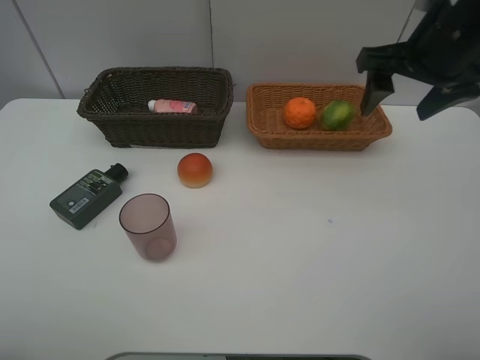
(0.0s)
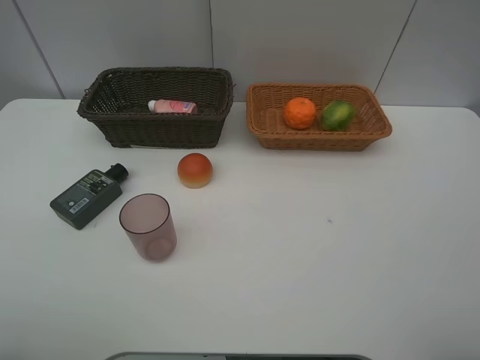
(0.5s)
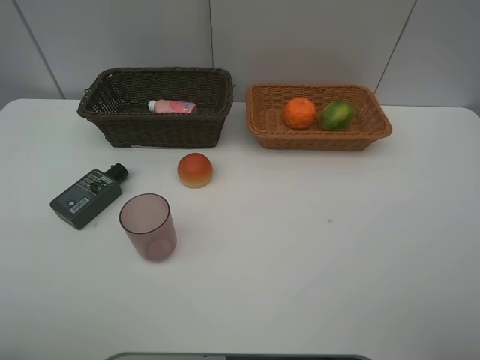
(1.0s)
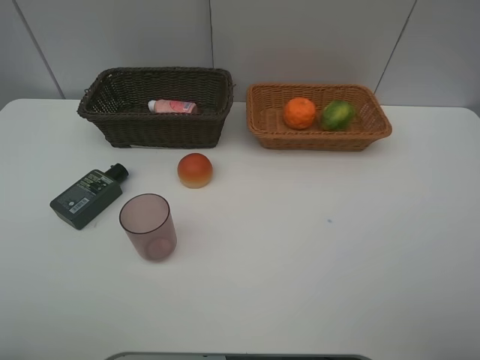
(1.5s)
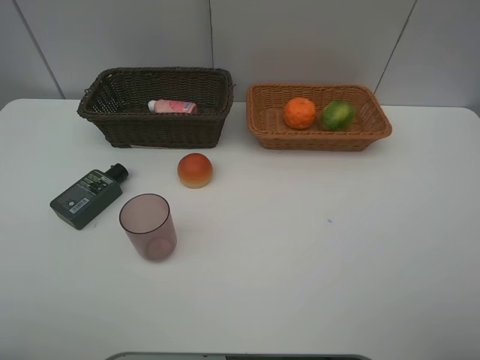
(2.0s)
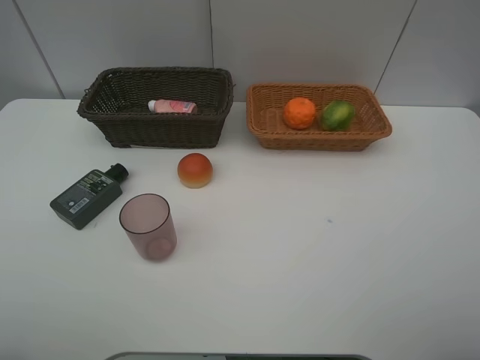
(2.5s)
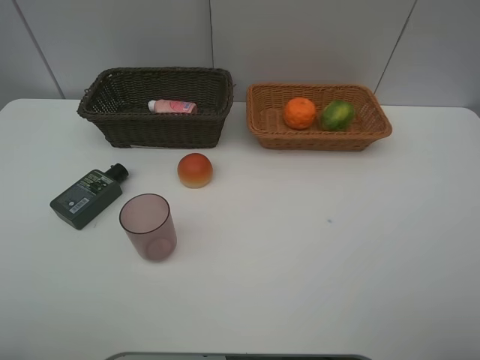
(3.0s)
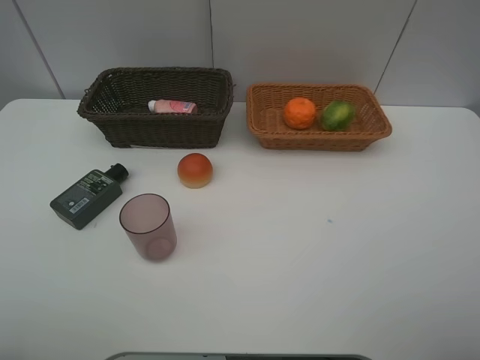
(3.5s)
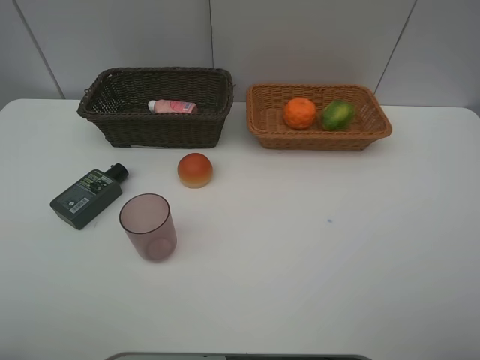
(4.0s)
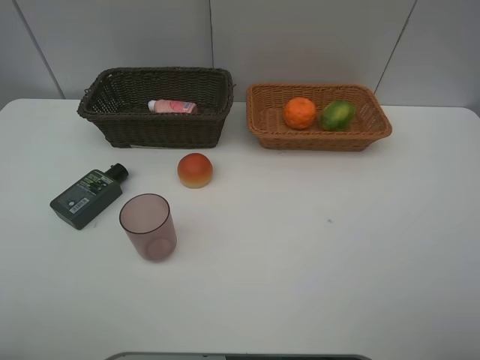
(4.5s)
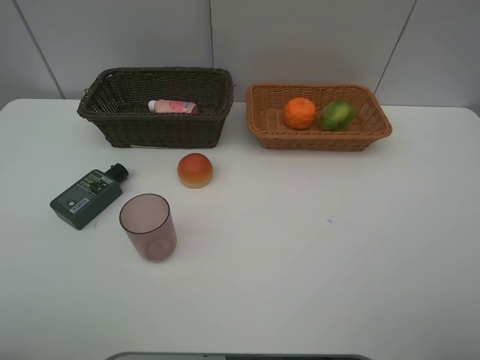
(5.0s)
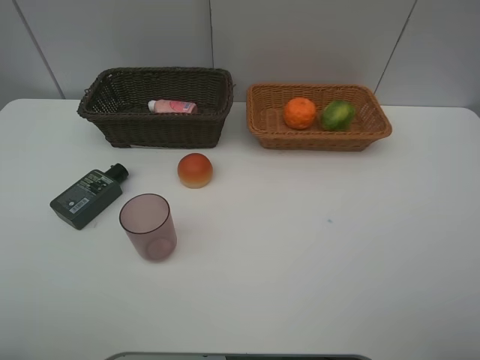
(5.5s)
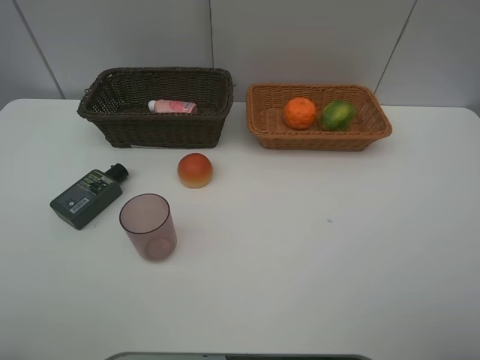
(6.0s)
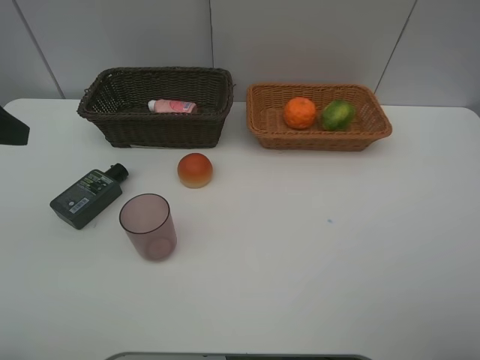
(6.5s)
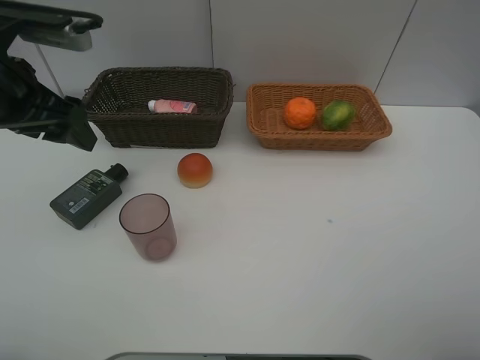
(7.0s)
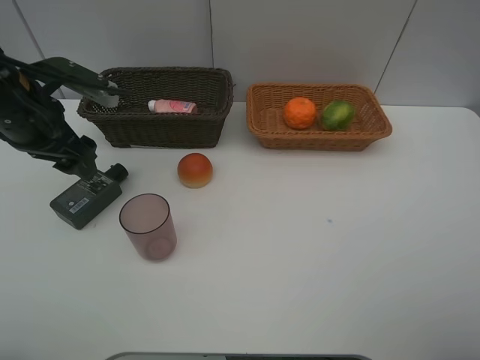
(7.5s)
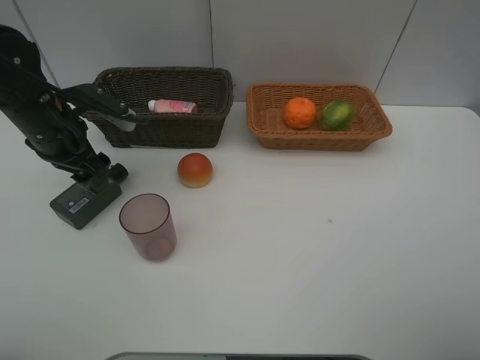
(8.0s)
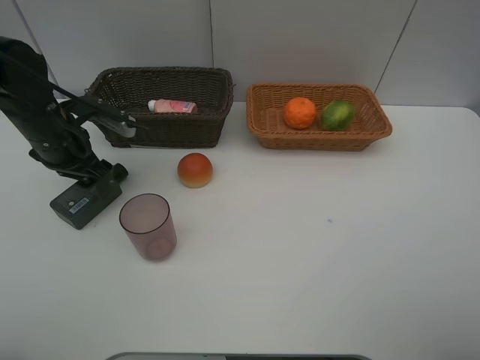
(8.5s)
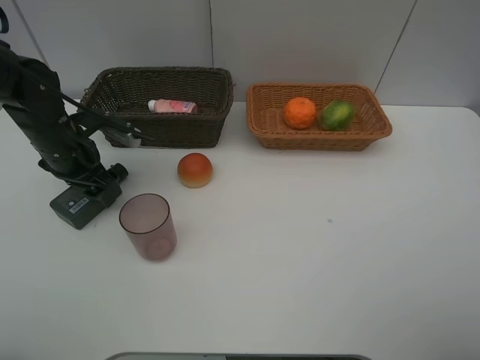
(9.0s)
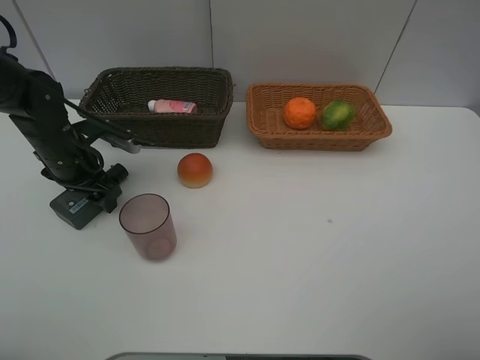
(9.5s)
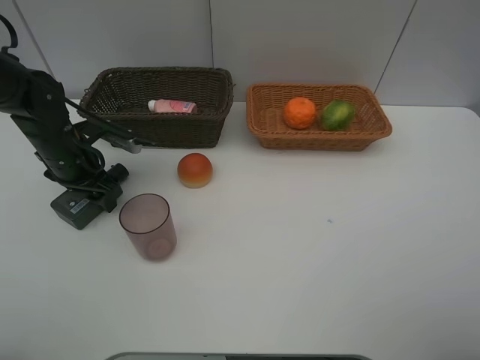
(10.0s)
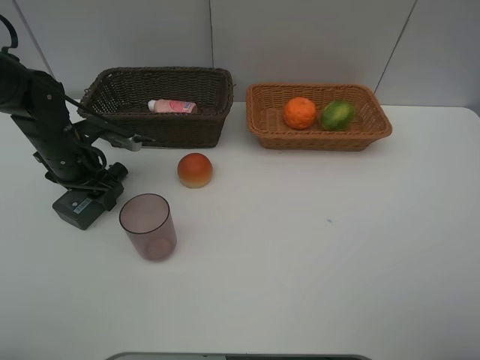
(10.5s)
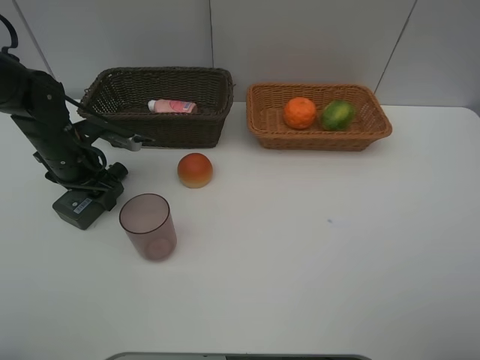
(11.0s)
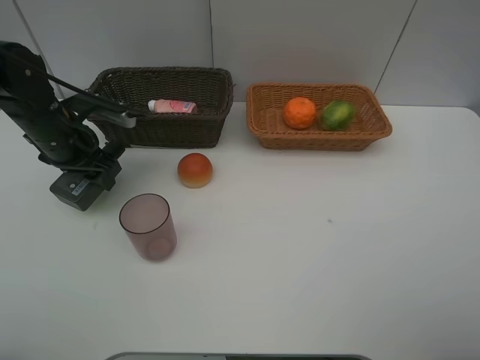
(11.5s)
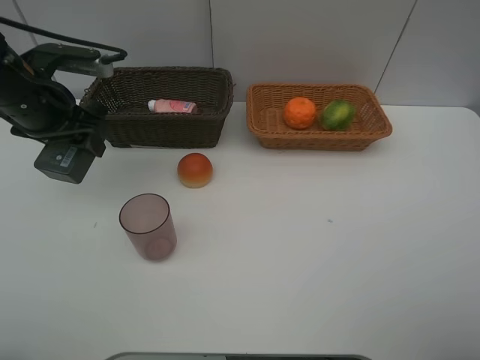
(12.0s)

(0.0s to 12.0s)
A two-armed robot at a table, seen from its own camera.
Task of the whole recording: place multiple objects separately in different baskets.
0.0s - 2.0s: The right gripper heads backward, covering approximately 30 cm.
6.0s - 8.0s: The left gripper shifts about 30 cm forward and downward.
8.0s - 10.0s: The left gripper goes about 5 cm downward.
10.0s - 12.0s: The left gripper is displaced upward by approximately 10 cm.

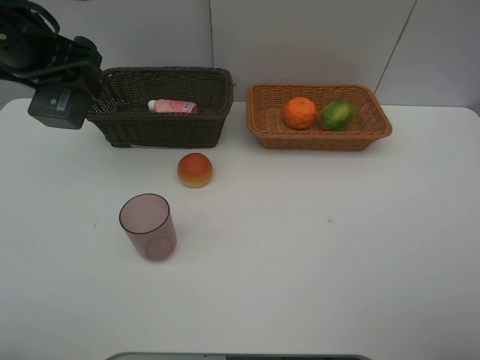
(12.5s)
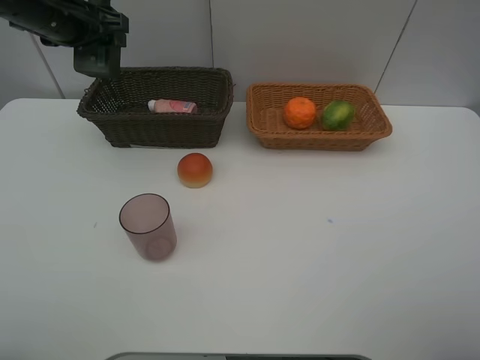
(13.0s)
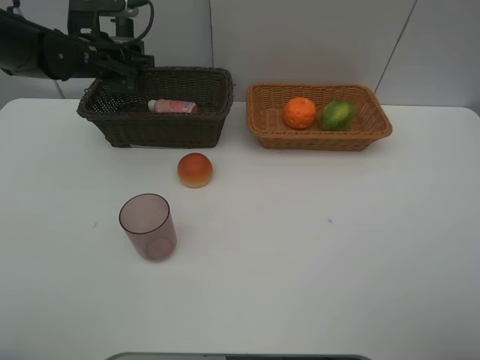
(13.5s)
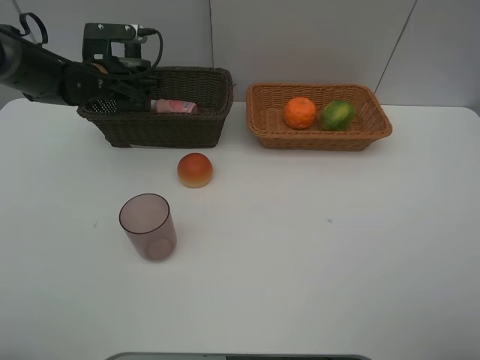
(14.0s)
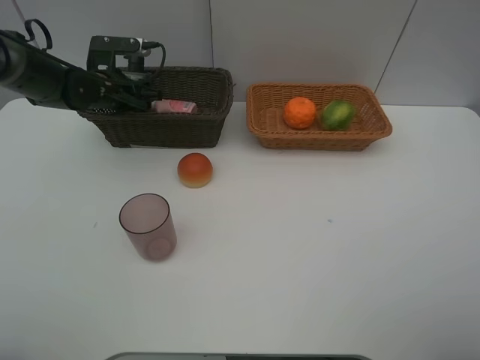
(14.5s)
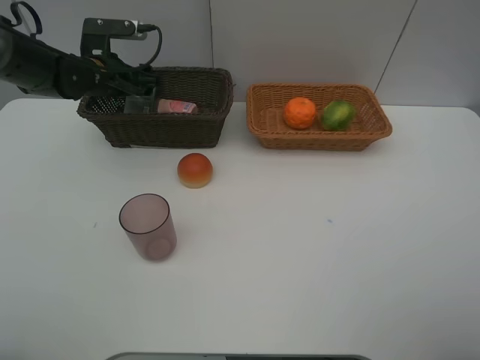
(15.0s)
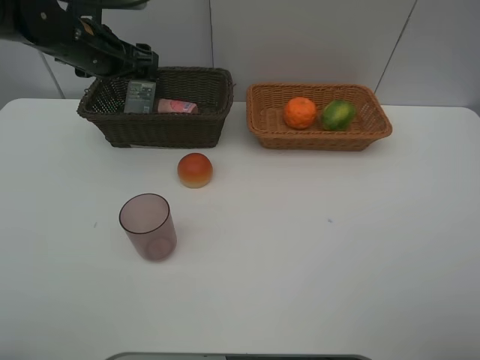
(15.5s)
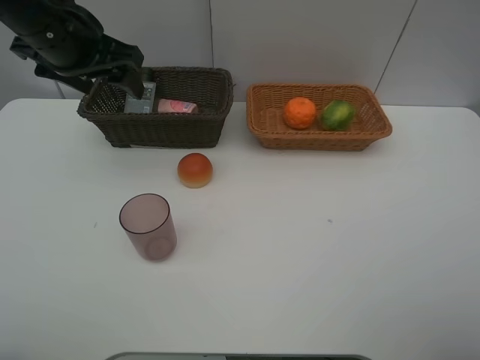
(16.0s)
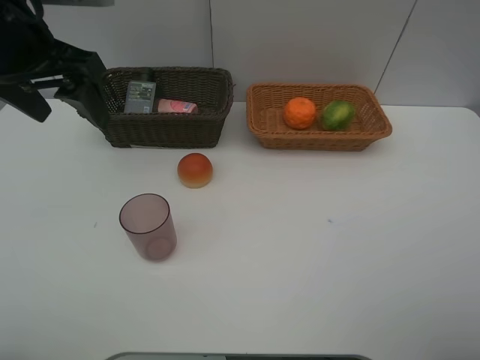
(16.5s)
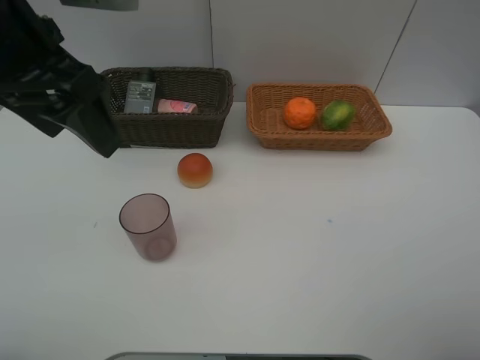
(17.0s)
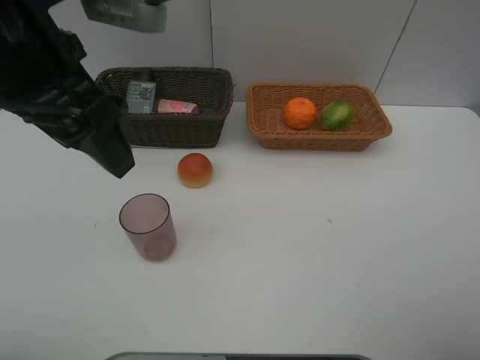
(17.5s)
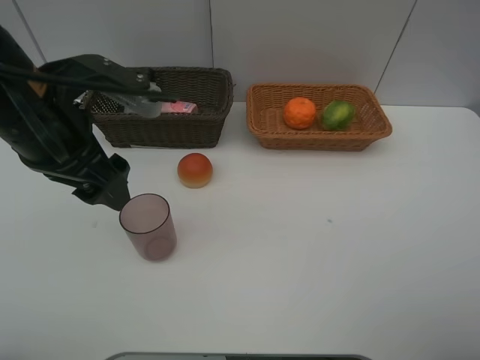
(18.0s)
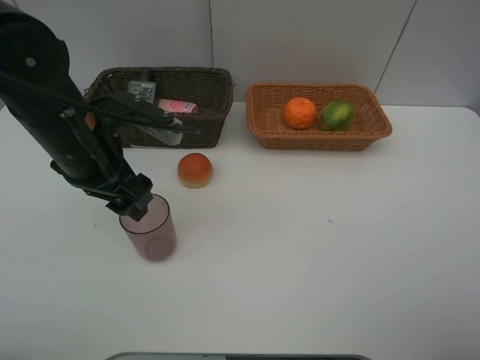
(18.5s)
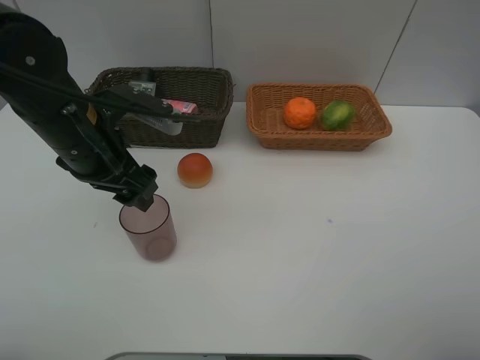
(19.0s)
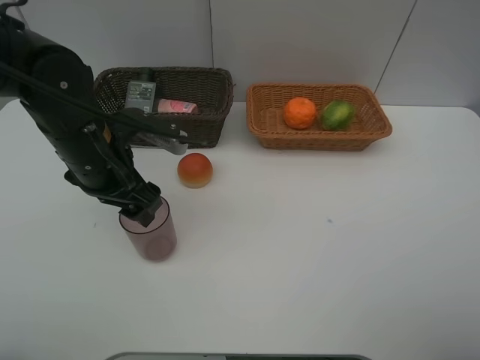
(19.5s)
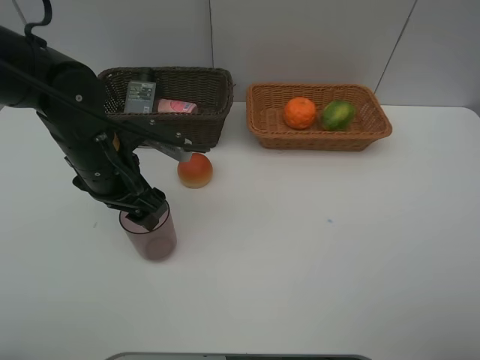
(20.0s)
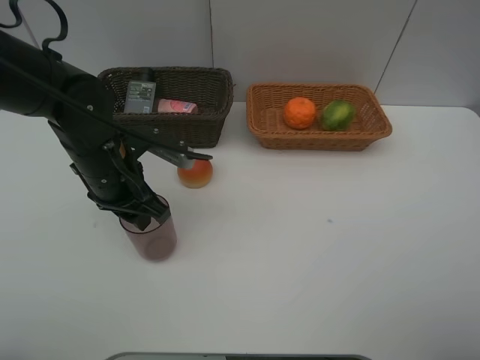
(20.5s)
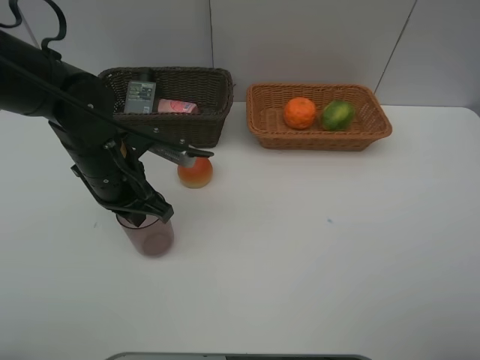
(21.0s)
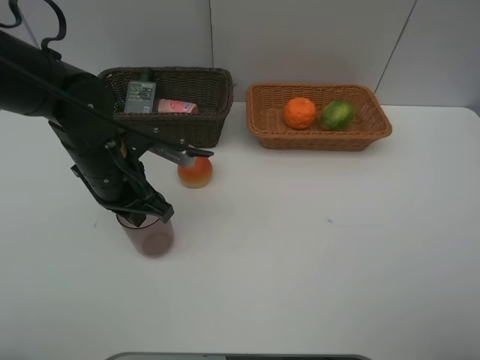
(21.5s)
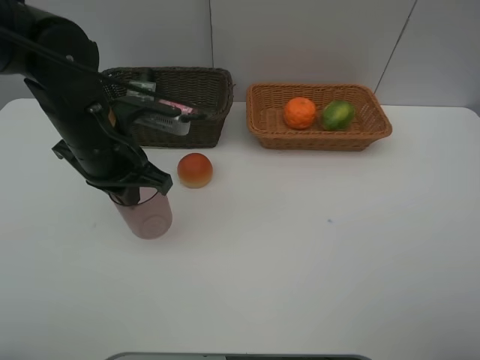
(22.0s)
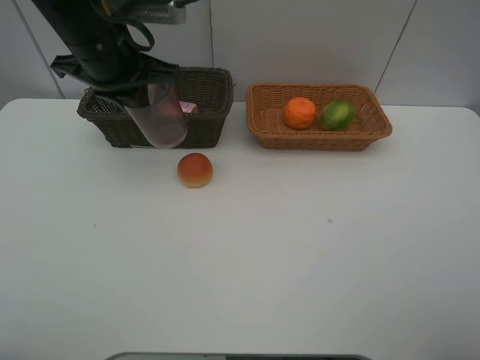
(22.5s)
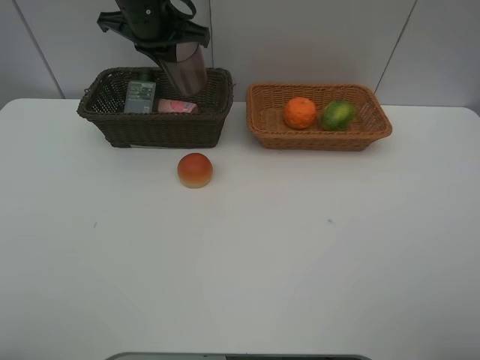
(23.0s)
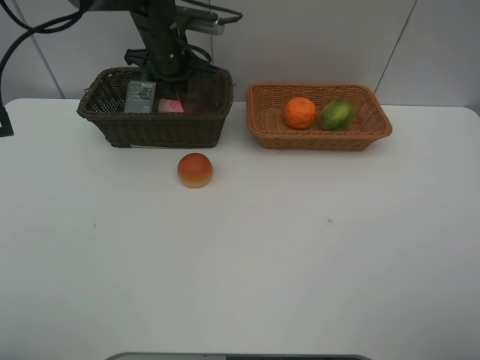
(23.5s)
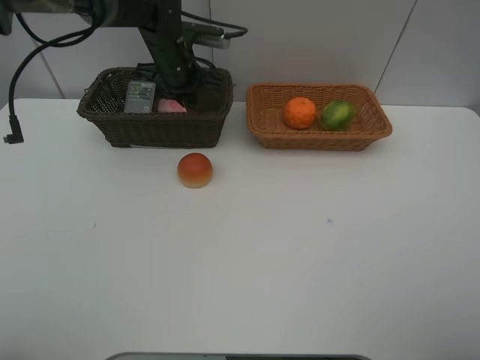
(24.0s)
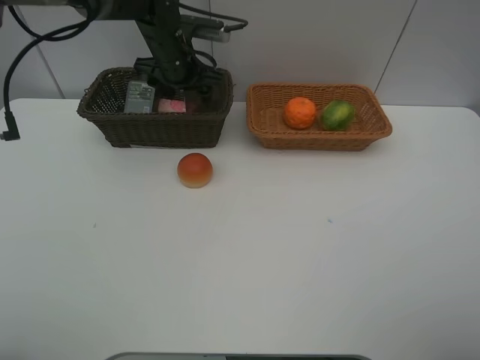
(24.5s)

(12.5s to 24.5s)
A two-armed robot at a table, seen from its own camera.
Task of the whole recording: place multiple objects separately in different baskets.
12.5s - 14.5s: The left gripper travels downward and forward by some 20 cm.
14.5s - 16.5s: The left gripper goes about 25 cm upward and backward.
16.5s - 18.5s: The left gripper moves downward, roughly 10 cm.
18.5s - 20.5s: The left gripper is displaced downward by about 5 cm, and closes up.
20.5s - 22.5s: The left gripper is displaced upward and forward by roughly 15 cm, and closes.
22.5s - 24.5s: The left gripper is displaced forward and downward by roughly 15 cm, and opens its fingers.

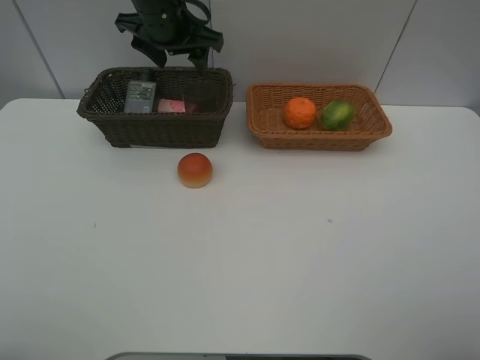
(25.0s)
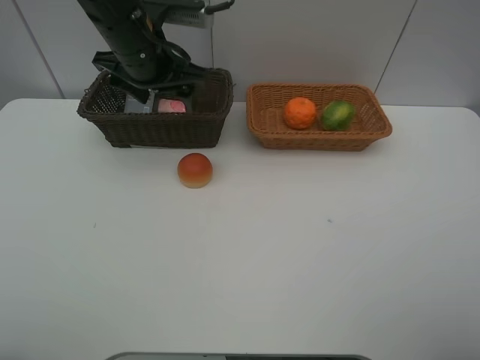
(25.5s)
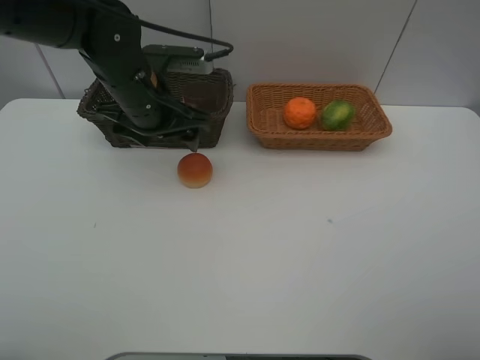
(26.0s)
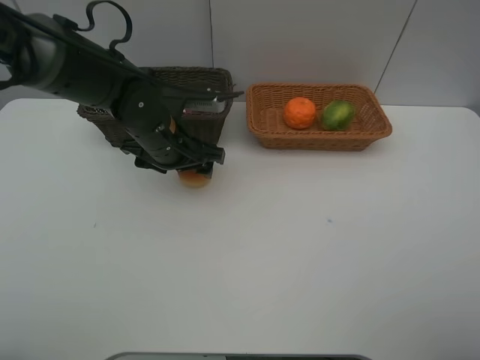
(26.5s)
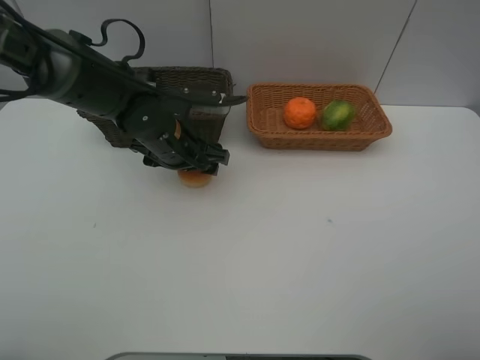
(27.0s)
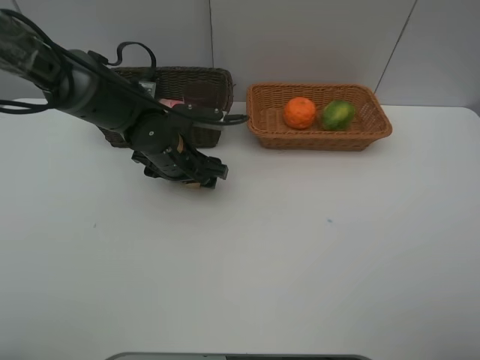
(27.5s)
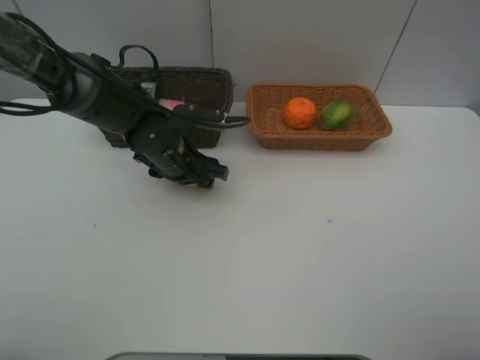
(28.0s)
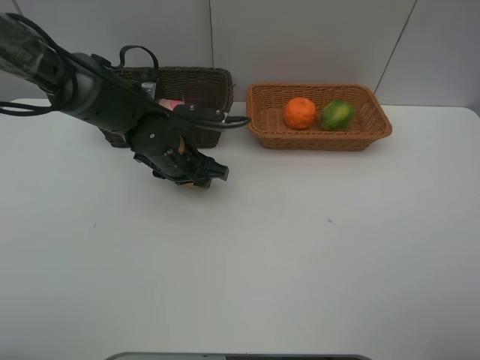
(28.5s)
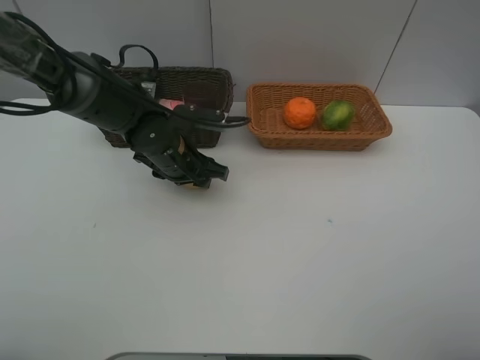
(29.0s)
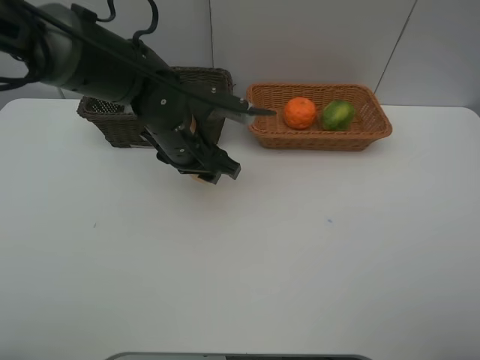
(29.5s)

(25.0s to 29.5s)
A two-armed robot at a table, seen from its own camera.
Task of the whole recording: place multiple objects separately in different baskets.
25.0s - 27.0s: The left gripper moves downward and backward, approximately 20 cm.
27.0s - 29.5s: The grippers move only a little.
